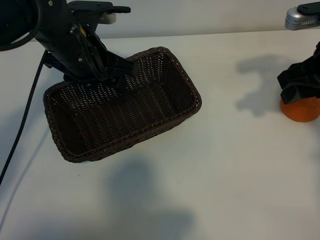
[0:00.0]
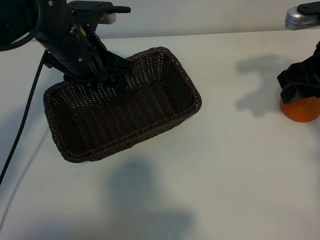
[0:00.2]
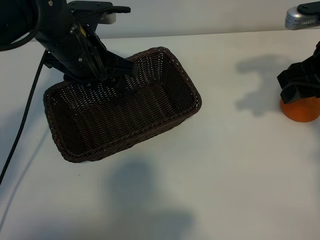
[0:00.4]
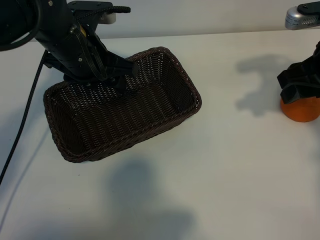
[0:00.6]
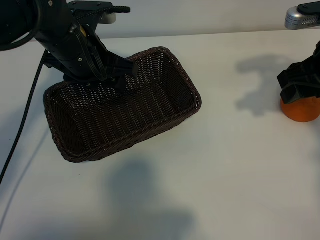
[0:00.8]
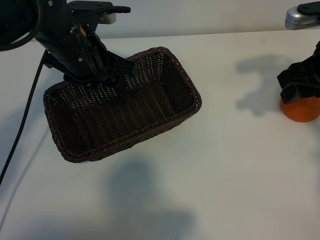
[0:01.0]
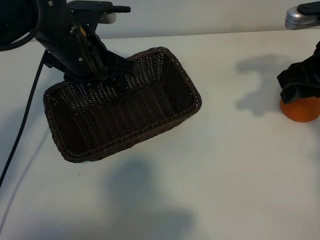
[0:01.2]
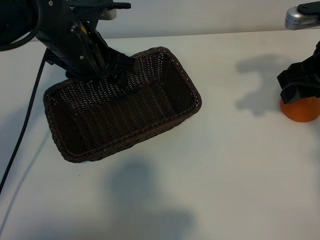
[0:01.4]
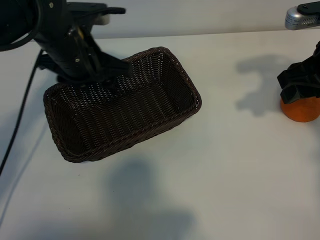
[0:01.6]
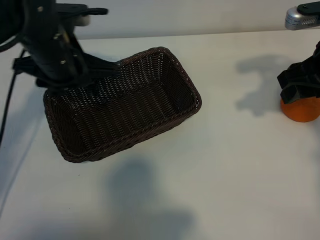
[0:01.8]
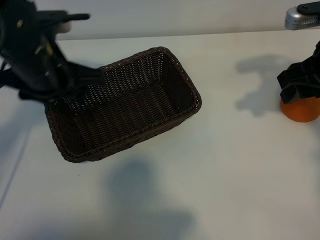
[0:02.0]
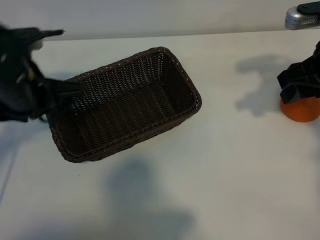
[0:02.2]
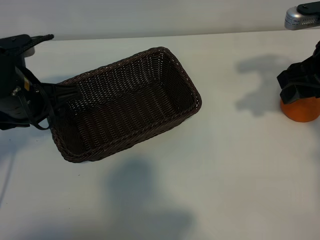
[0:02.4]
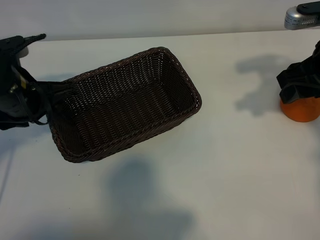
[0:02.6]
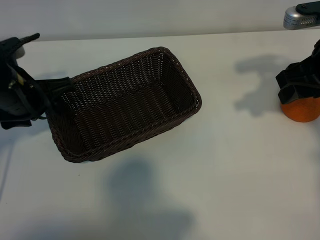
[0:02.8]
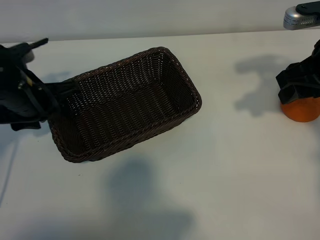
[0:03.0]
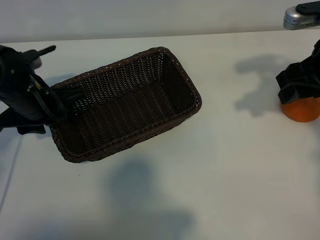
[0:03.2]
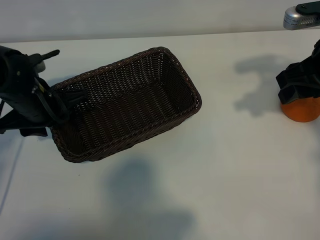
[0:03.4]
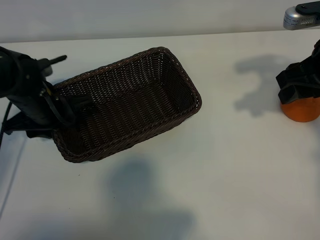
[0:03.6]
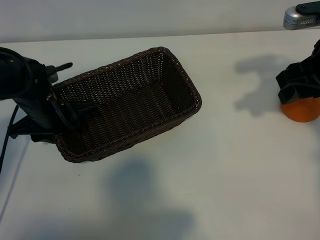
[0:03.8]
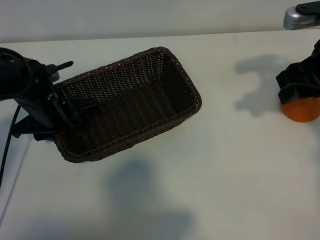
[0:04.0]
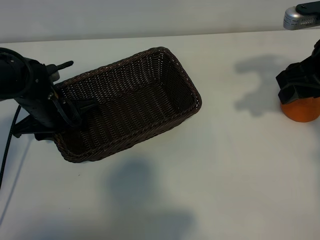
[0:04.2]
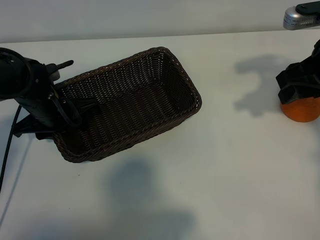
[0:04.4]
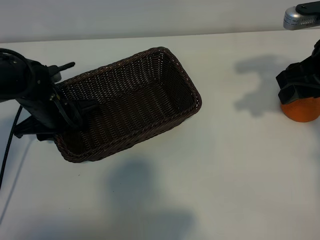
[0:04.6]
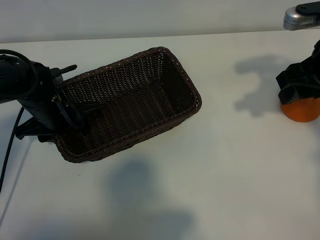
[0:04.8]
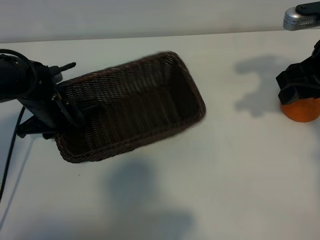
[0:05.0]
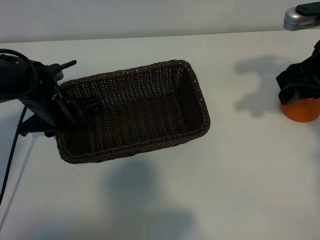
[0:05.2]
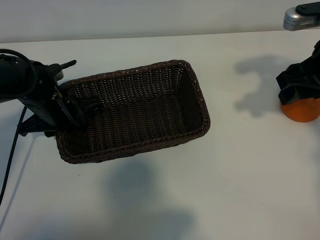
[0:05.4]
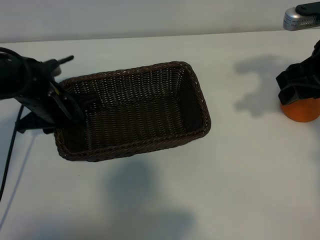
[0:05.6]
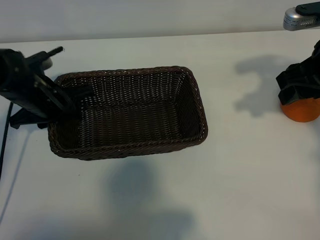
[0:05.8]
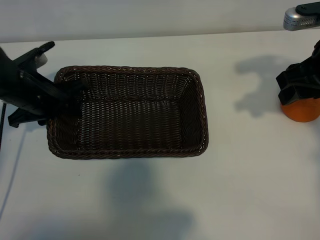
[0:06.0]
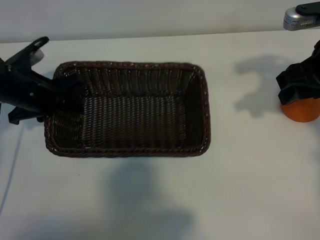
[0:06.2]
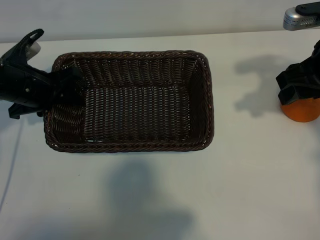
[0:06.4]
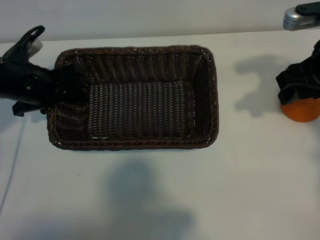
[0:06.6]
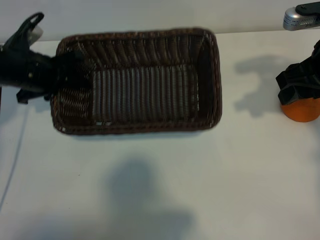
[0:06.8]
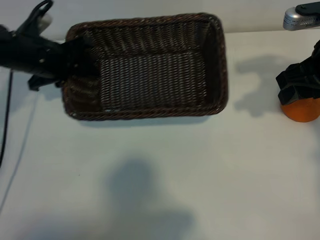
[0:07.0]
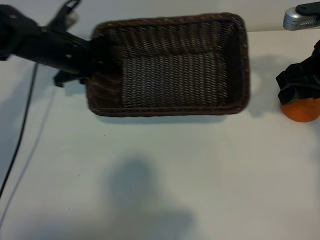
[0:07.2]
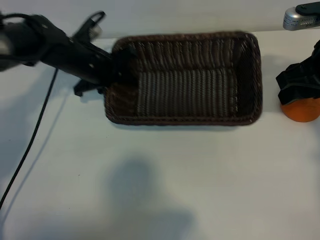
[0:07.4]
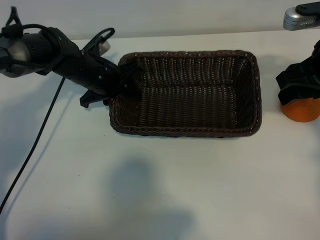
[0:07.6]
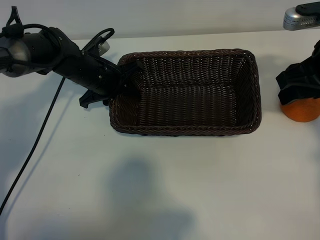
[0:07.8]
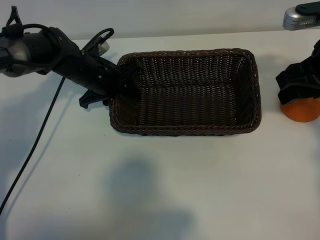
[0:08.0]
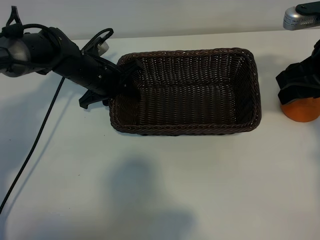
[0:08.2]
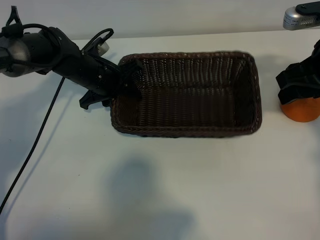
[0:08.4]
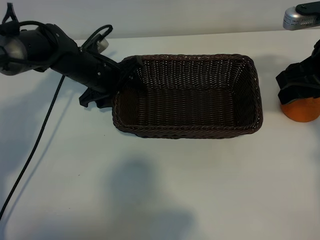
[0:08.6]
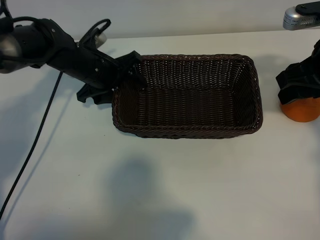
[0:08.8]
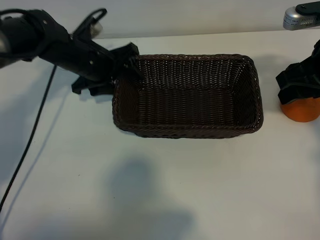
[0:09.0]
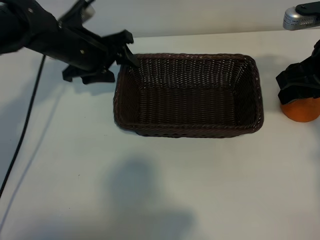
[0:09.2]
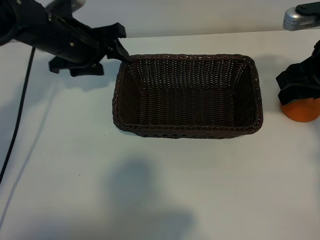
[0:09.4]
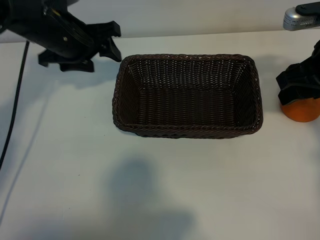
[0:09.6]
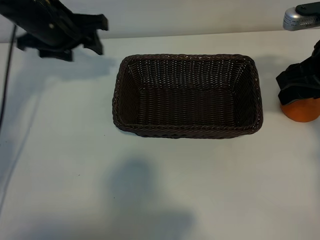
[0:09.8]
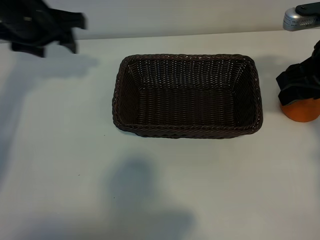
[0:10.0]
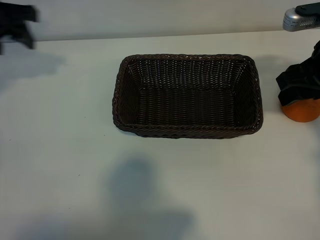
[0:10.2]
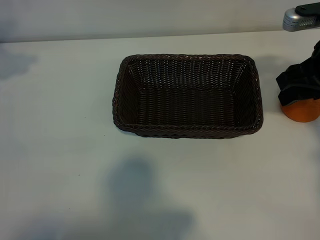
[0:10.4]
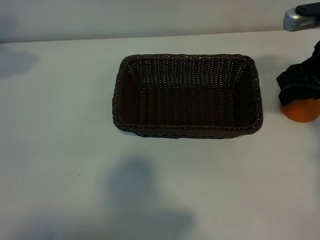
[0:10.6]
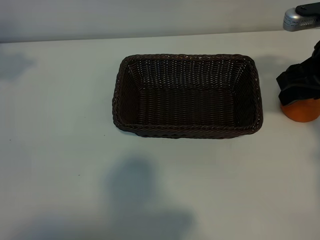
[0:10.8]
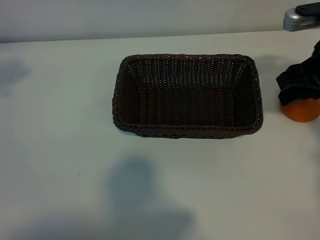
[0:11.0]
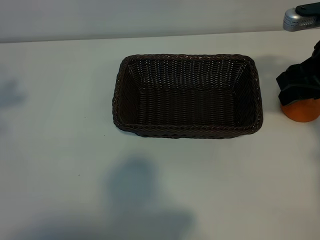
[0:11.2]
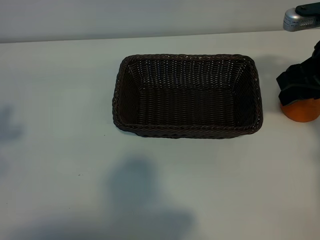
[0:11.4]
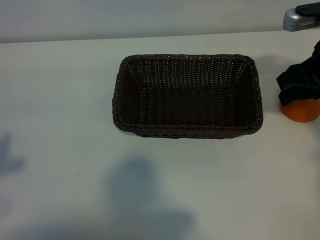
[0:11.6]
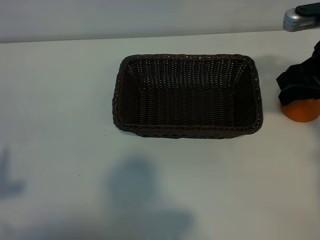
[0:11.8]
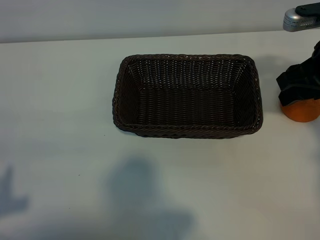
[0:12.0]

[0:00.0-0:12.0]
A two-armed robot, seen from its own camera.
Task of the whole recording: pick up the orange and put it into the basket.
Step, 0:01.2 to 0:05.0: Grasp the basket with left gripper.
Step, 0:05.4 to 0:08.4: Place the basket in the center of view with left gripper.

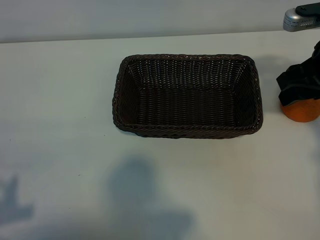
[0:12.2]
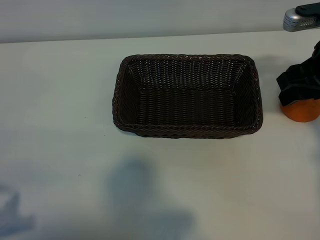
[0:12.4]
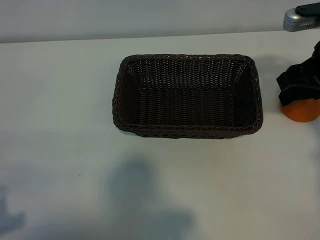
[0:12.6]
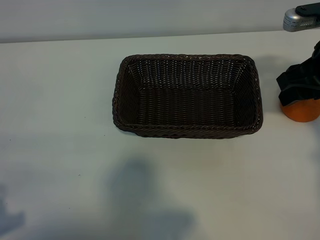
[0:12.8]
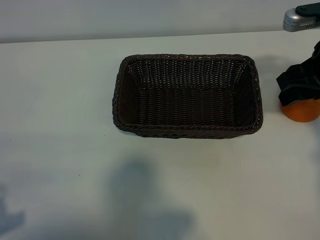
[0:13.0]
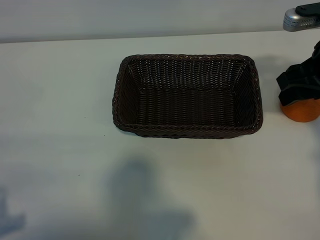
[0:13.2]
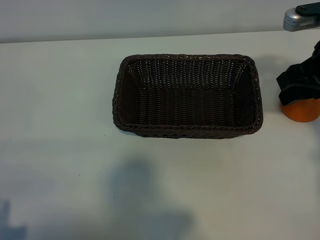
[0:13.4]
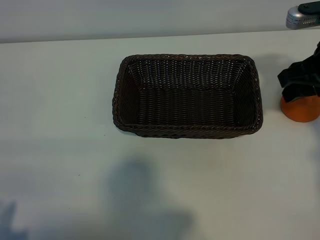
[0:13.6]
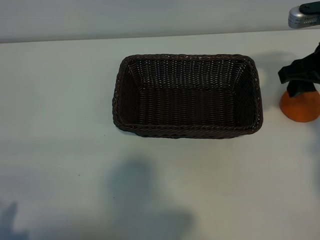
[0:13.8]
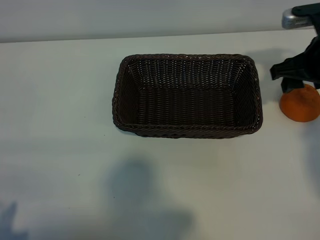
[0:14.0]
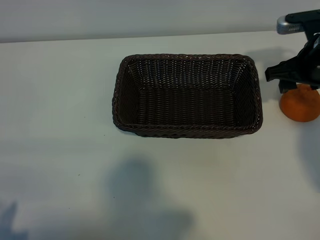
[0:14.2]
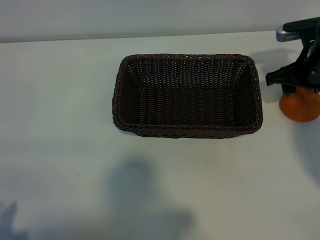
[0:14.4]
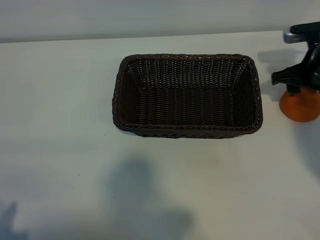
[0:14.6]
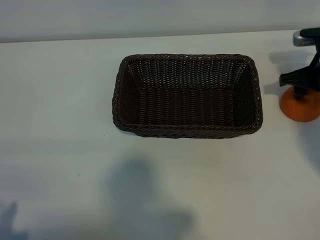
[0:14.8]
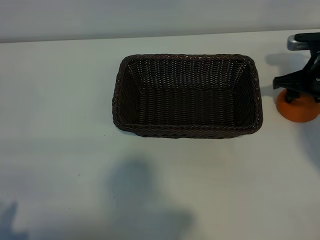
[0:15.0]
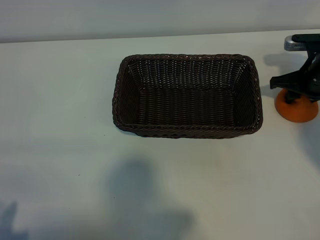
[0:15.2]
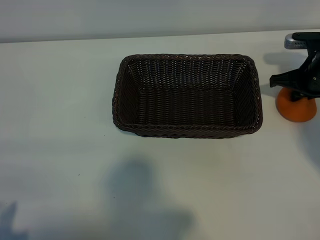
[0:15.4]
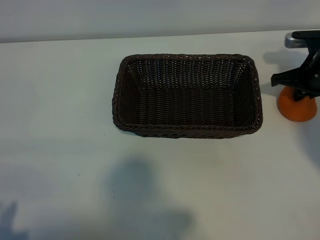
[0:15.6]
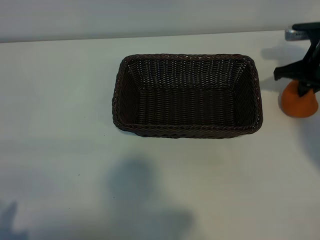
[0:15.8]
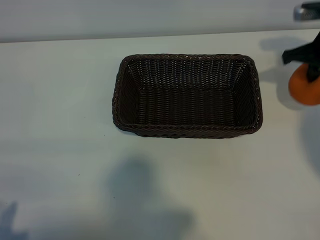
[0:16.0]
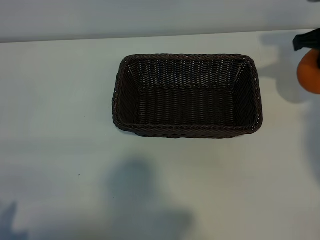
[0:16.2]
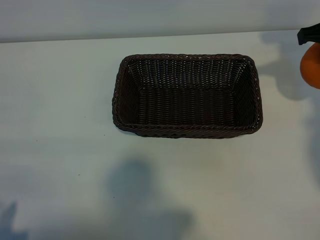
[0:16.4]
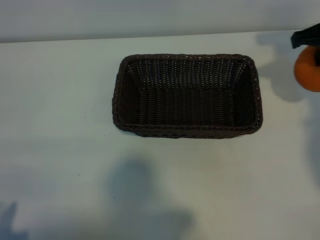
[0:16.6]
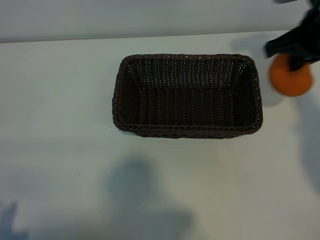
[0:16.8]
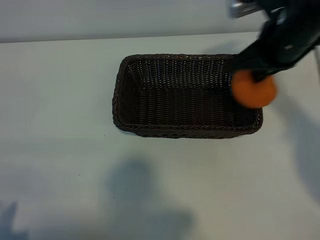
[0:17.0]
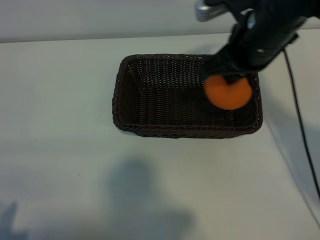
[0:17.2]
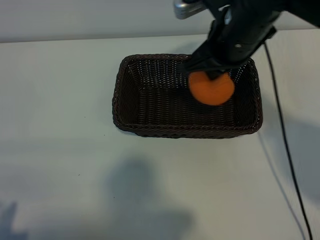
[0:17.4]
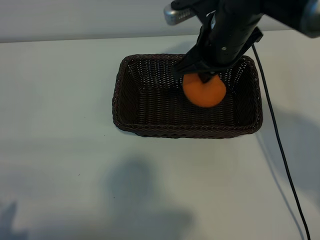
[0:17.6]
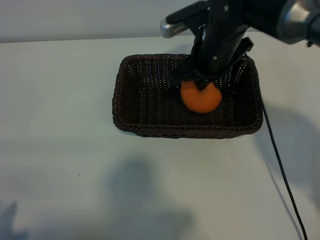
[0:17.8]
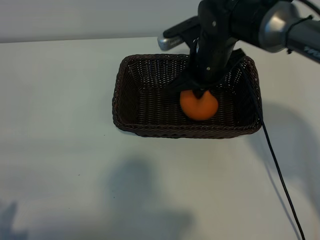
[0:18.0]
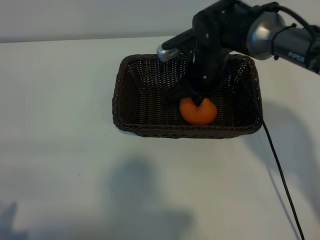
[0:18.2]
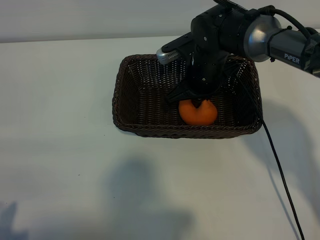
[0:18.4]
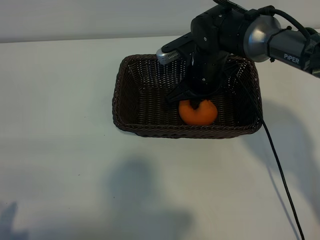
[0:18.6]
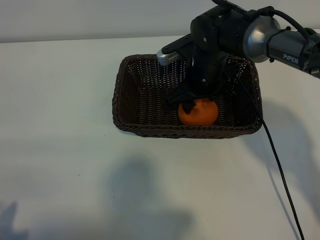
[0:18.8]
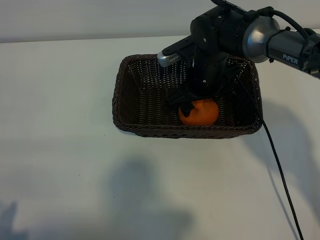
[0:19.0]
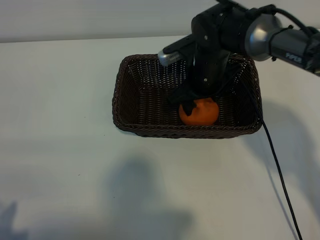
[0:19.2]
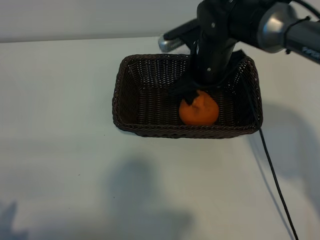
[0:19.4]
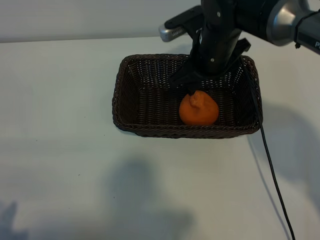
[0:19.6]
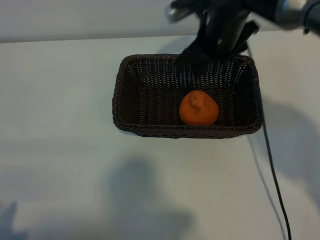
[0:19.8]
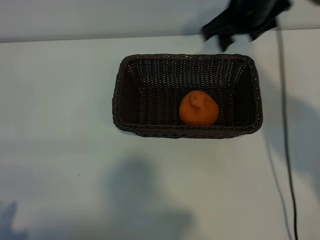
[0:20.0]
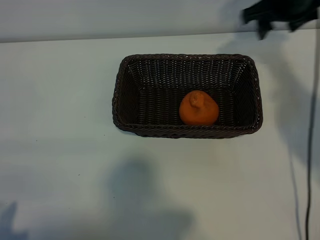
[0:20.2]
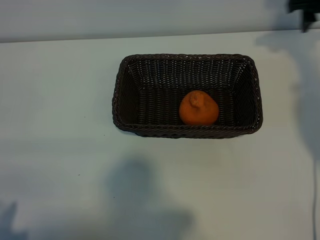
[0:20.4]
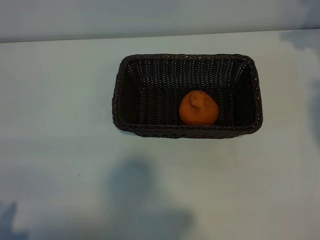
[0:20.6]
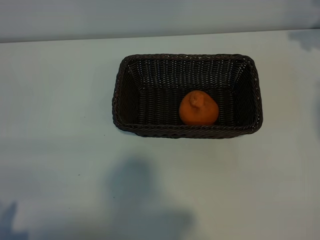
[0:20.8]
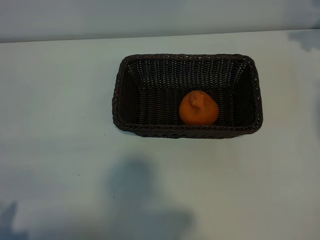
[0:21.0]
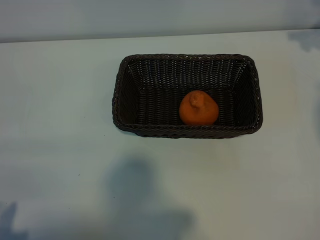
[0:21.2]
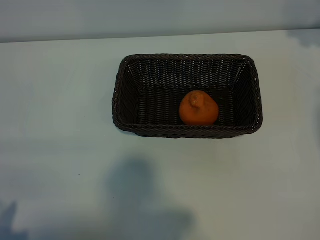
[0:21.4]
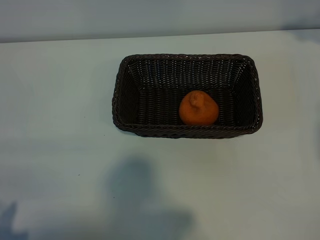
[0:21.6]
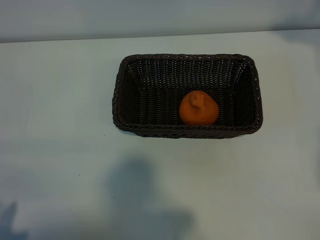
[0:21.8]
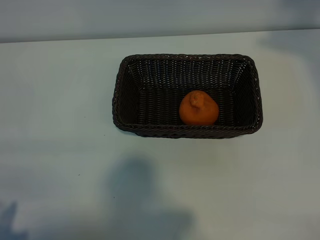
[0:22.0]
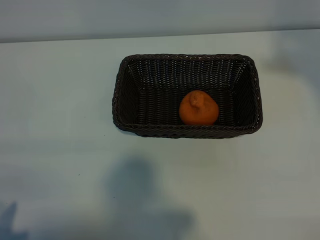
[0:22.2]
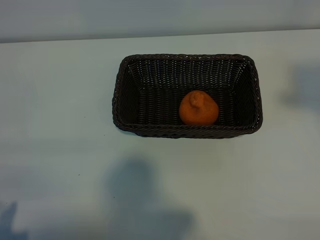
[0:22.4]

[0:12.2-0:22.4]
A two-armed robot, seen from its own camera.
Task of the whole recording: pick up the orange and put it into the basket.
Step, 0:12.2 to 0:15.4: Grasp the orange with right gripper.
Step, 0:15.6 to 0:18.8: Place the orange in the basket with right gripper.

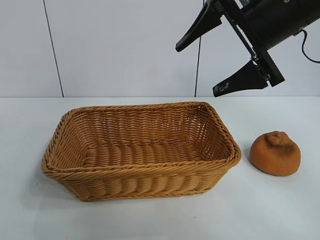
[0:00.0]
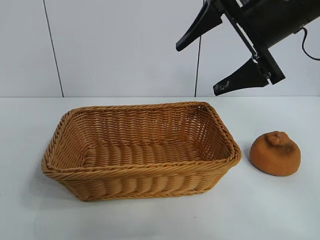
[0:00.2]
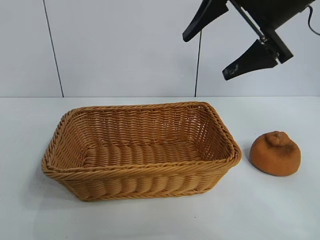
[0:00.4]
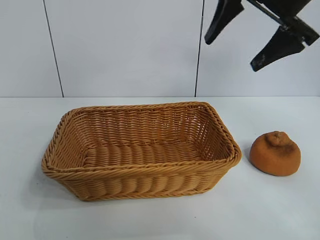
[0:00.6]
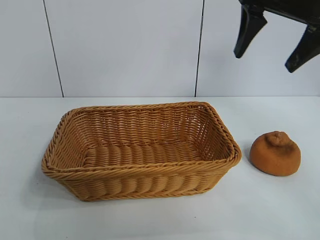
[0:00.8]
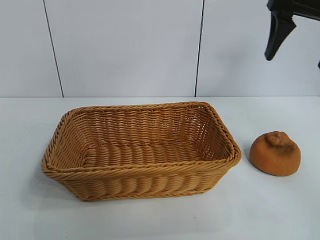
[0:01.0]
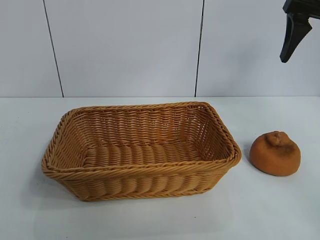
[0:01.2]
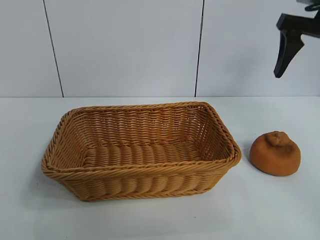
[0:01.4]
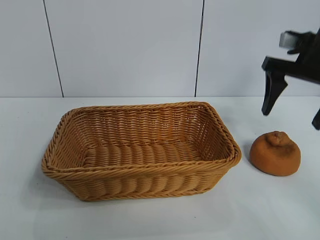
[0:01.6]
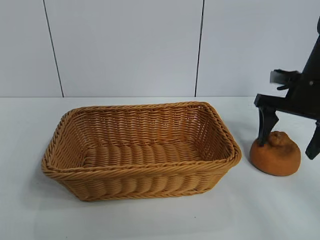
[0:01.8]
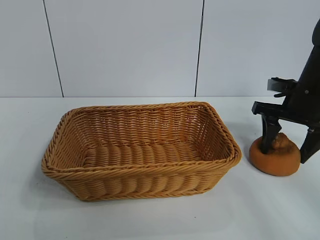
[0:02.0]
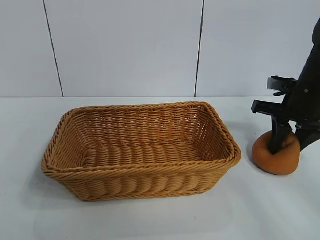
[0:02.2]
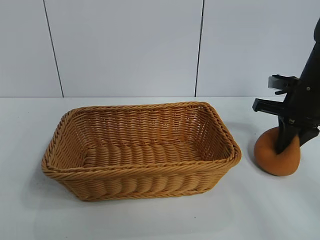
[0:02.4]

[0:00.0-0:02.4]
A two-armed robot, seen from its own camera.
Task of the whole recording: pick up the orange and put it into the basket.
Step, 0:00.0 to 0:02.2: Grasp the orange with right gripper.
